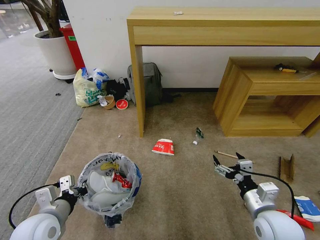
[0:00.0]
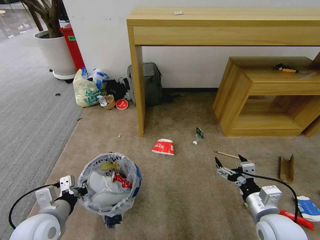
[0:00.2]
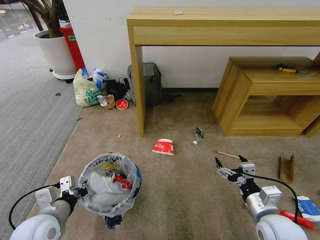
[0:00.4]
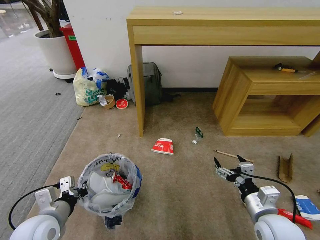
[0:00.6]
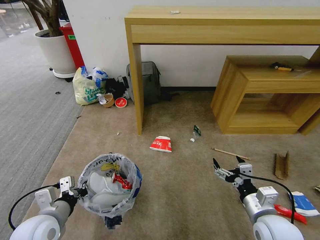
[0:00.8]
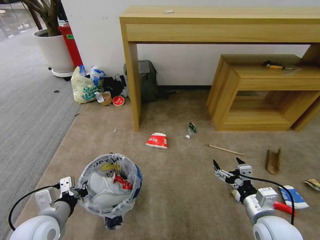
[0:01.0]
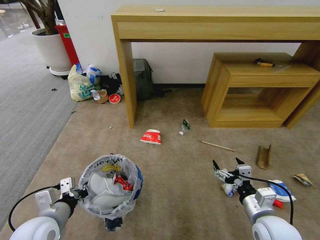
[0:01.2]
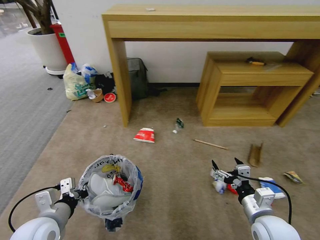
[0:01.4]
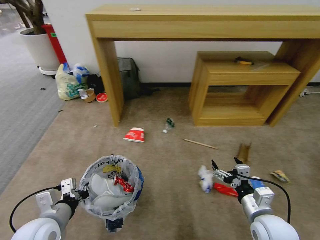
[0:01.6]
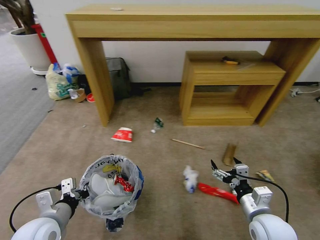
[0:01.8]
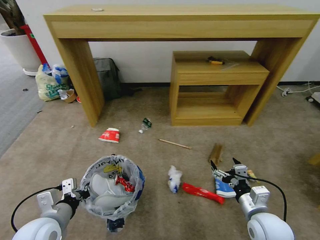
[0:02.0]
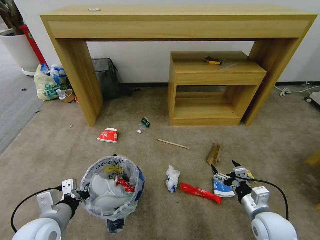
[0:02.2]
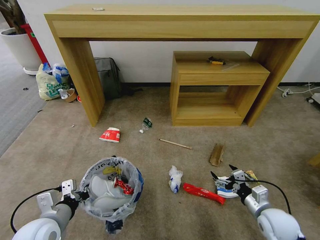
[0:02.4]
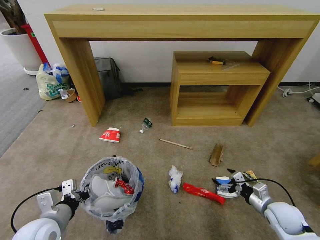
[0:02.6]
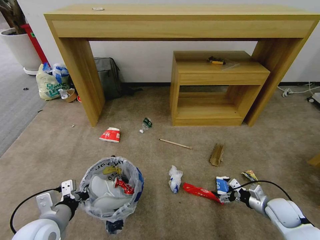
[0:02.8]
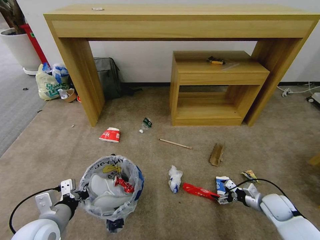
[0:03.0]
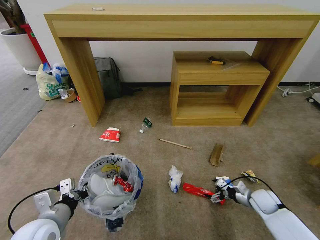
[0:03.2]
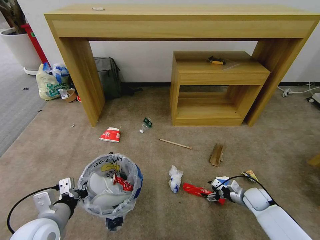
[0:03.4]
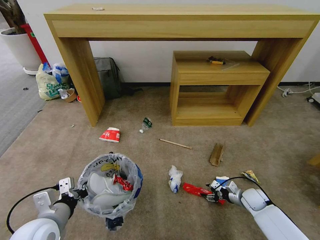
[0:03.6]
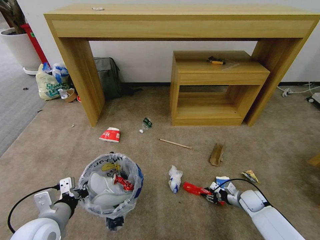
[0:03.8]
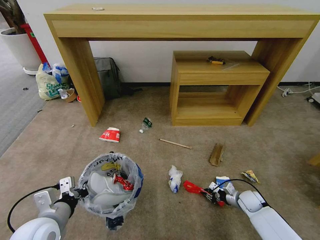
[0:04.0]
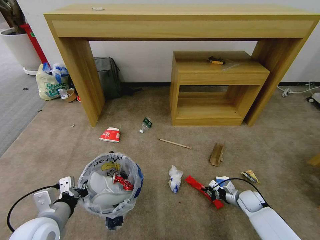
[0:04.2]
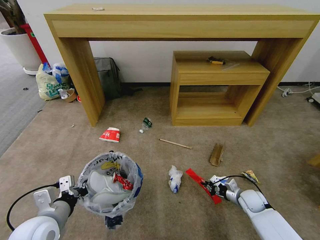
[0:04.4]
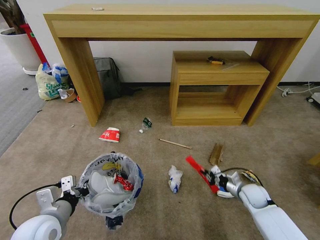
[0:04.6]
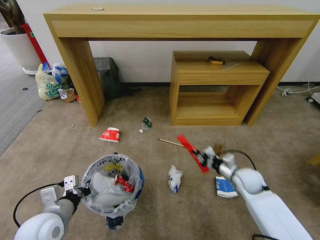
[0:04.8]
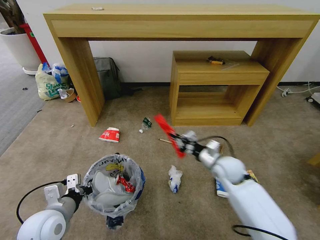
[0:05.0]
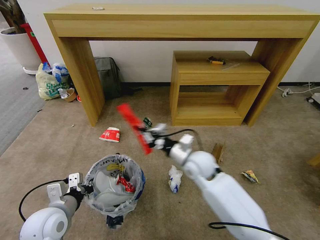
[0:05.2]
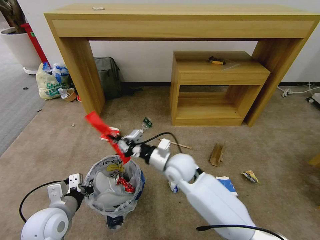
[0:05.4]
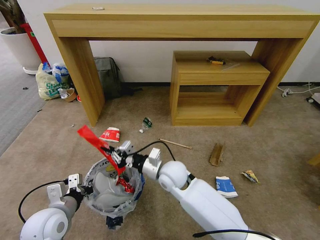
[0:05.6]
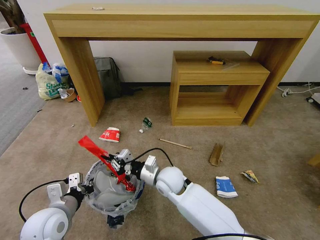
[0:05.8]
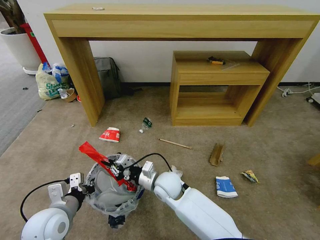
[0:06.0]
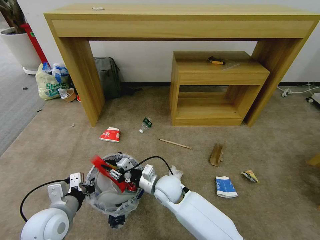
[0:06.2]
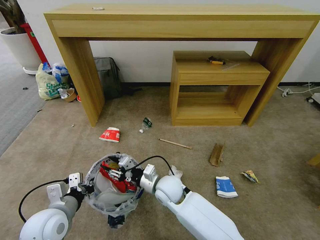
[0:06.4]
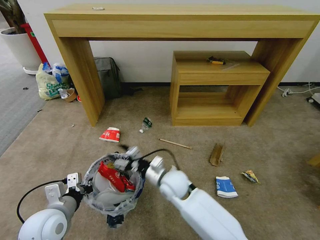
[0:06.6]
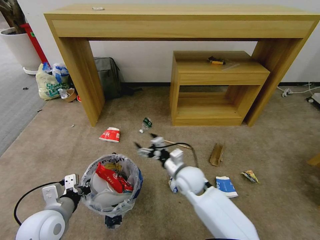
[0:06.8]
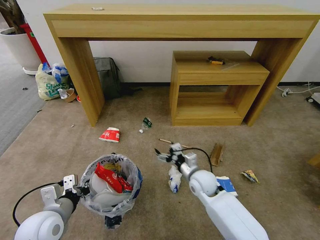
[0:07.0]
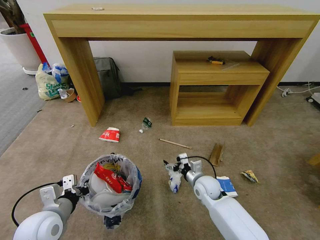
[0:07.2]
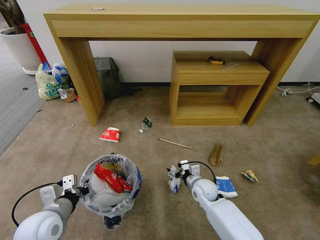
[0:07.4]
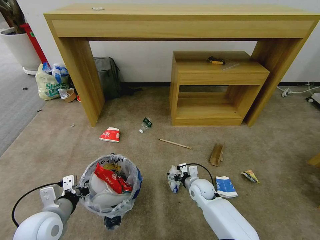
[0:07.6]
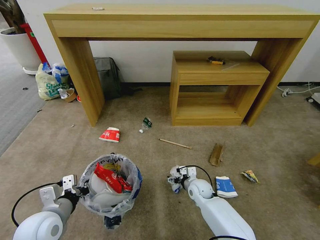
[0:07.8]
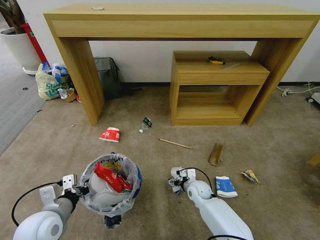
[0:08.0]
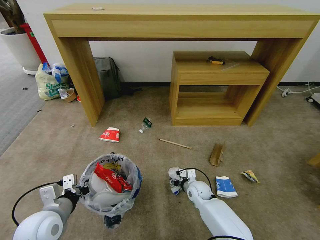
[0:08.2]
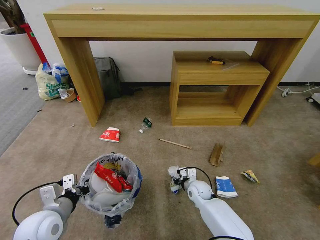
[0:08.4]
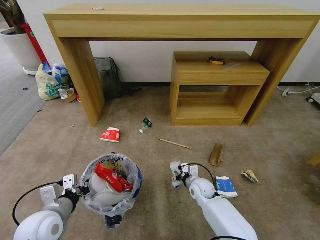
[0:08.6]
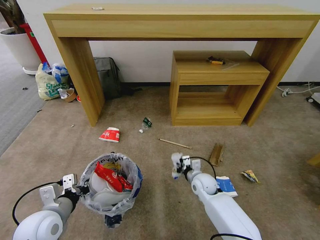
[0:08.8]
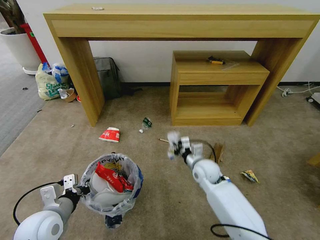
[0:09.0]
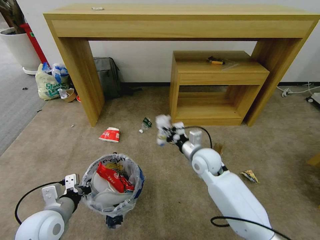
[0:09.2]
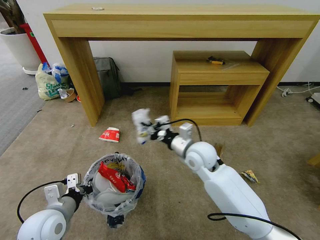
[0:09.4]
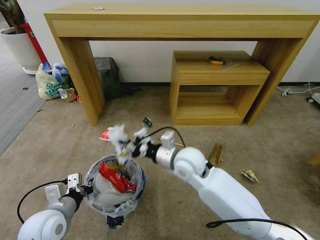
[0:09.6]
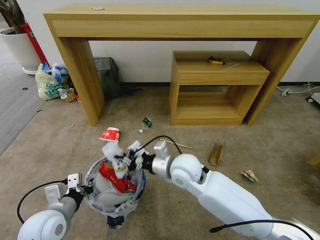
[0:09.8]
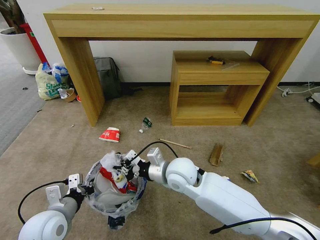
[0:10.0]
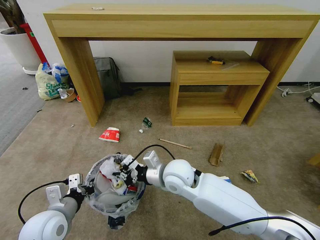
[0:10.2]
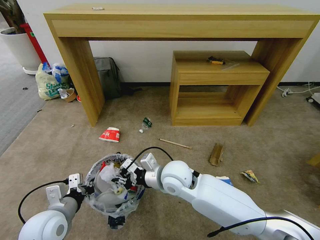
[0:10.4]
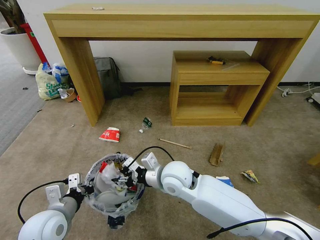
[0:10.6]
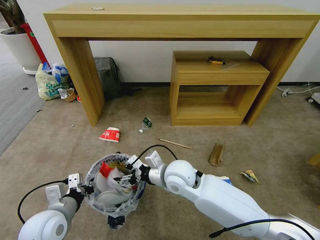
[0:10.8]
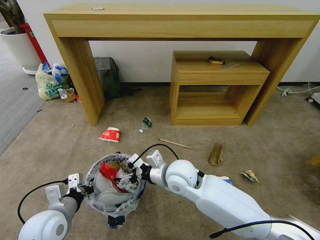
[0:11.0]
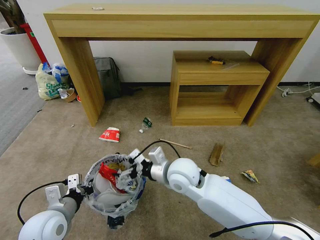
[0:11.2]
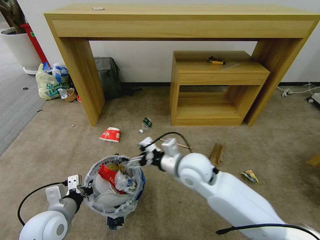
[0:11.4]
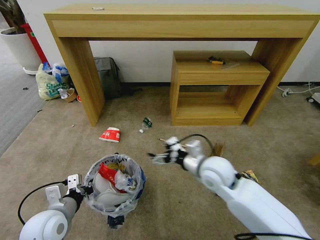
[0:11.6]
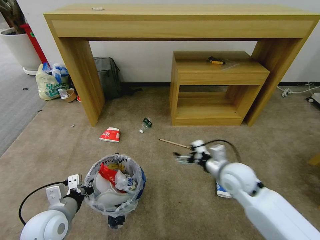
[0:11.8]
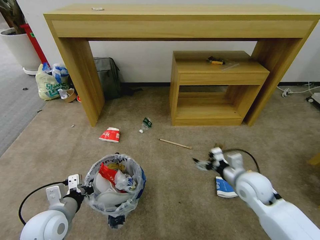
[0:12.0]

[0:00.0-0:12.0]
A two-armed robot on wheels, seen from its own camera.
Task of the whole recording: Pick up the trash bin and place the garbage on the floor into it.
0:01.6 to 0:03.0: The right gripper travels to the right, downward and forward by approximately 20 cm.
0:03.0 to 0:04.4: The right gripper goes about 10 cm downward and to the left, and closes.
0:04.4 to 0:06.0: The right gripper goes roughly 35 cm to the left.
0:06.0 to 0:07.6: The right gripper goes some 20 cm to the right and downward, and opens its fingers.
0:07.6 to 0:09.0: The right gripper moves upward, approximately 10 cm, and closes.
0:09.0 to 0:10.4: The right gripper shifts roughly 20 cm to the left, upward and backward.
0:10.4 to 0:12.0: The right gripper moves to the right, approximately 25 cm, and opens up.

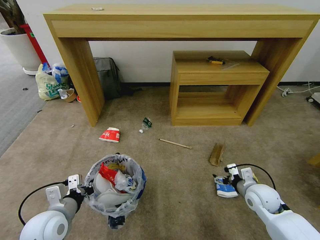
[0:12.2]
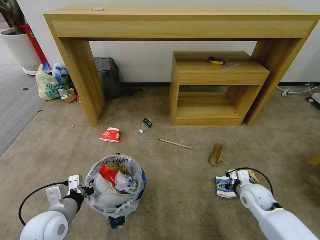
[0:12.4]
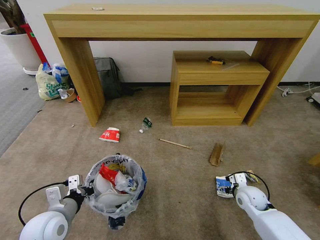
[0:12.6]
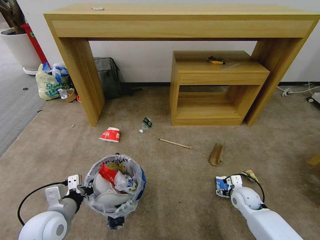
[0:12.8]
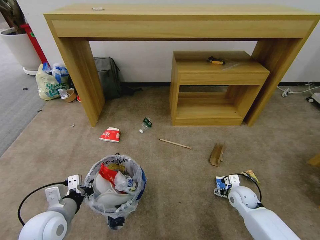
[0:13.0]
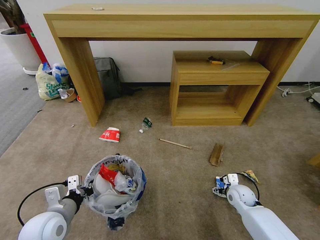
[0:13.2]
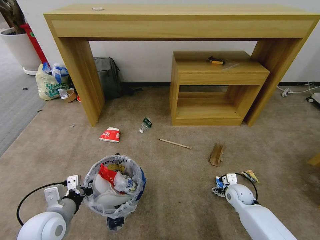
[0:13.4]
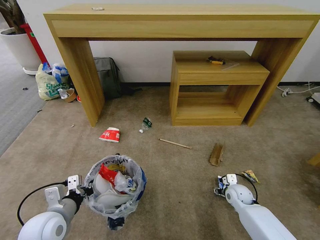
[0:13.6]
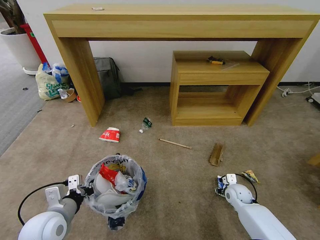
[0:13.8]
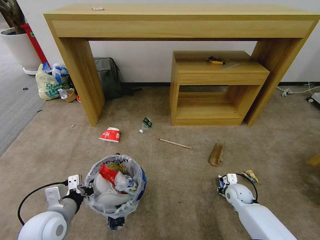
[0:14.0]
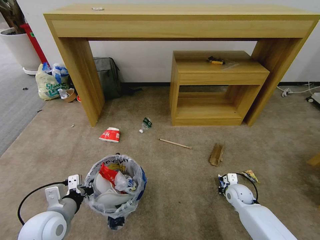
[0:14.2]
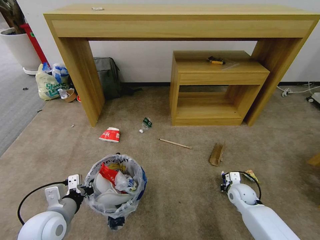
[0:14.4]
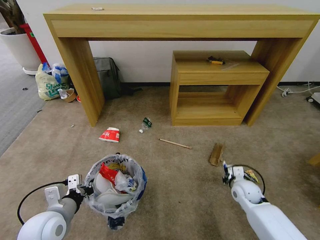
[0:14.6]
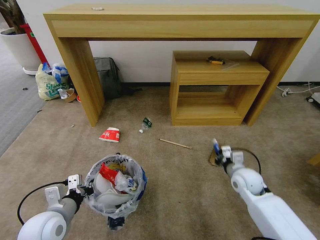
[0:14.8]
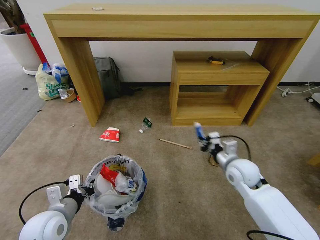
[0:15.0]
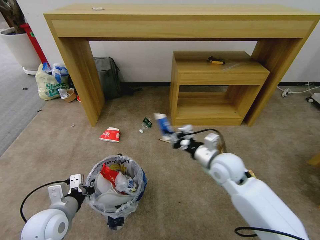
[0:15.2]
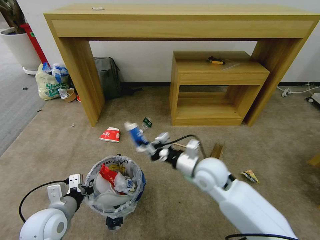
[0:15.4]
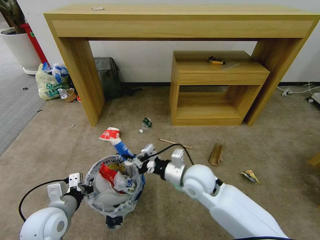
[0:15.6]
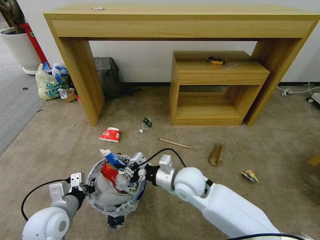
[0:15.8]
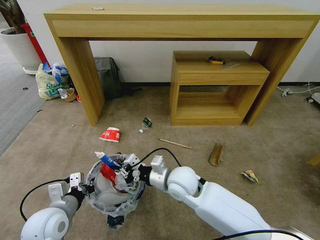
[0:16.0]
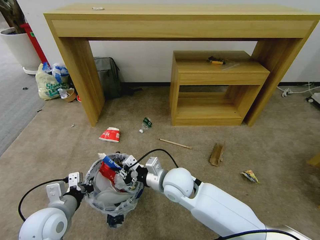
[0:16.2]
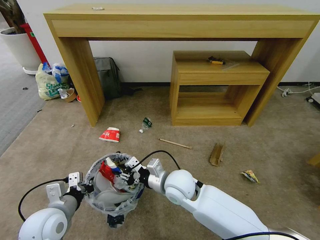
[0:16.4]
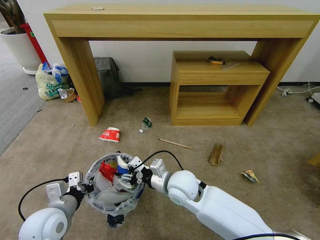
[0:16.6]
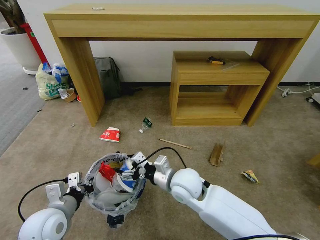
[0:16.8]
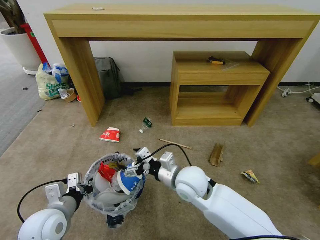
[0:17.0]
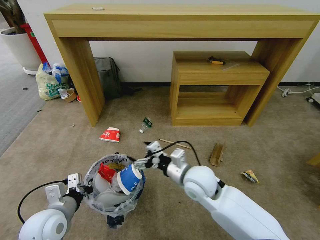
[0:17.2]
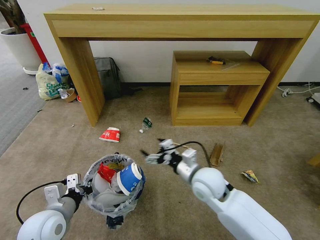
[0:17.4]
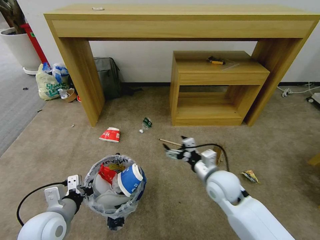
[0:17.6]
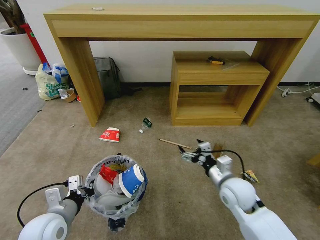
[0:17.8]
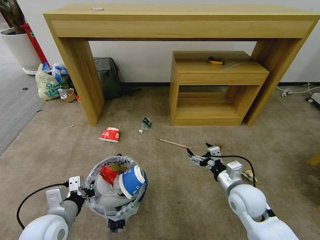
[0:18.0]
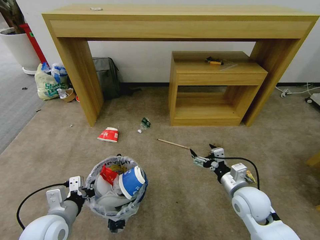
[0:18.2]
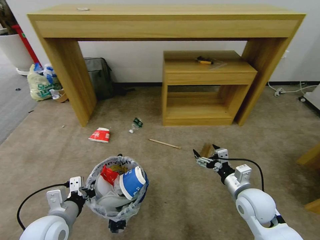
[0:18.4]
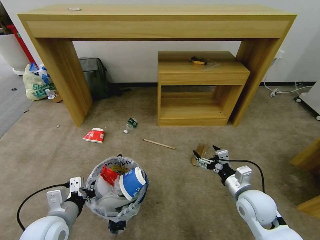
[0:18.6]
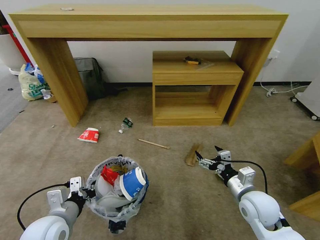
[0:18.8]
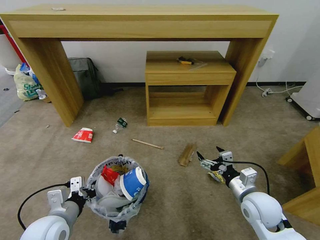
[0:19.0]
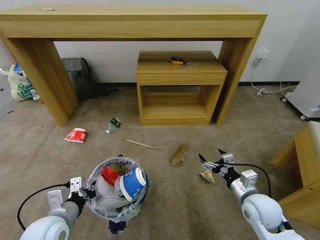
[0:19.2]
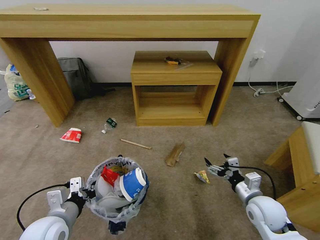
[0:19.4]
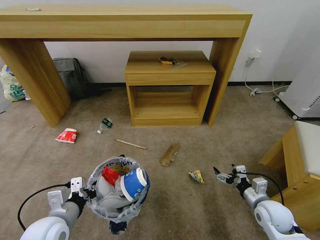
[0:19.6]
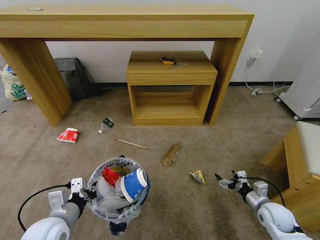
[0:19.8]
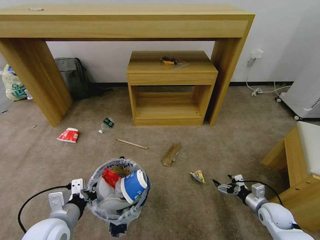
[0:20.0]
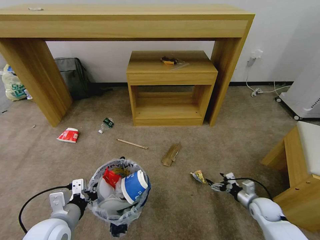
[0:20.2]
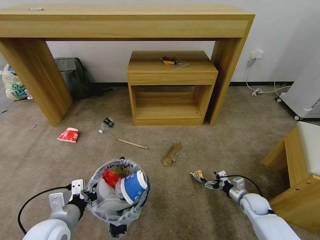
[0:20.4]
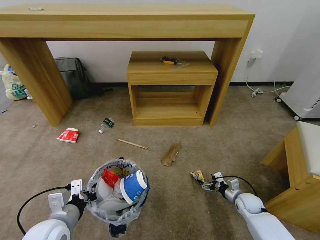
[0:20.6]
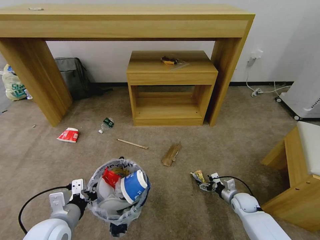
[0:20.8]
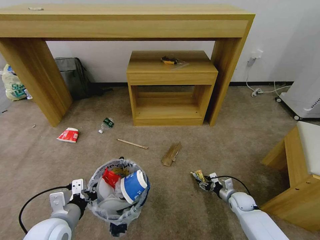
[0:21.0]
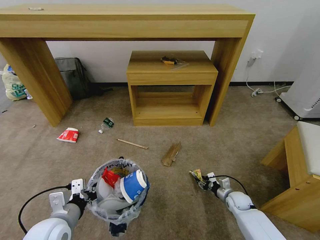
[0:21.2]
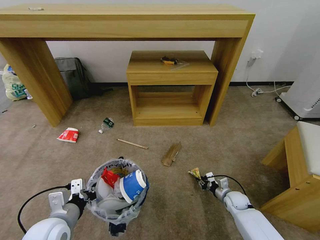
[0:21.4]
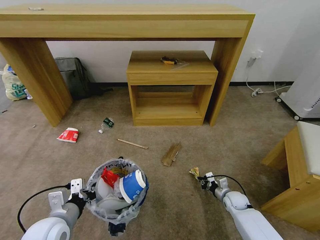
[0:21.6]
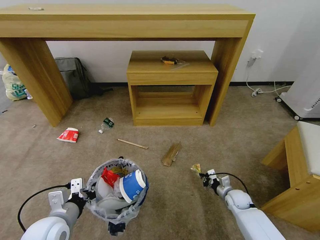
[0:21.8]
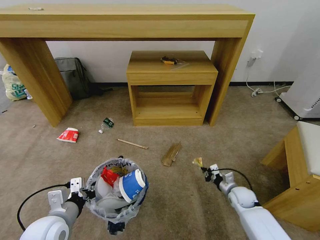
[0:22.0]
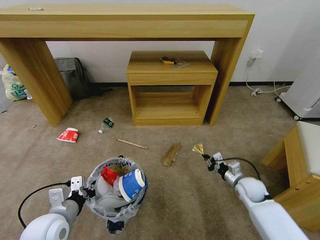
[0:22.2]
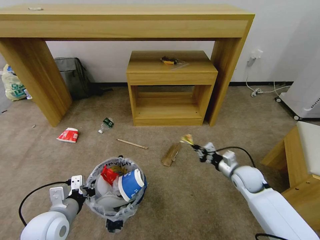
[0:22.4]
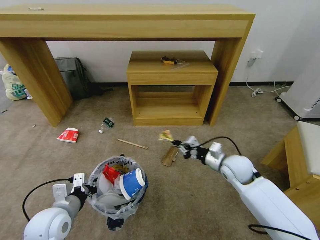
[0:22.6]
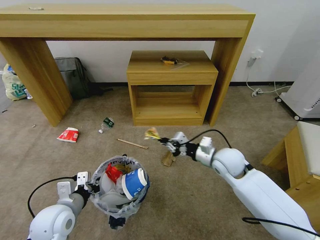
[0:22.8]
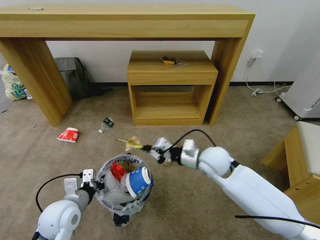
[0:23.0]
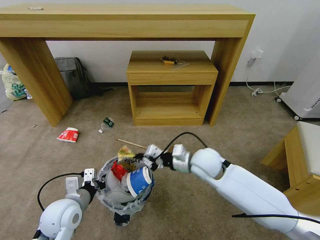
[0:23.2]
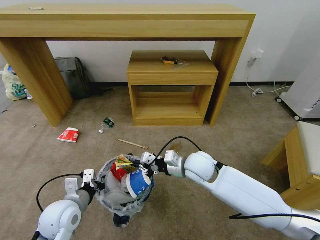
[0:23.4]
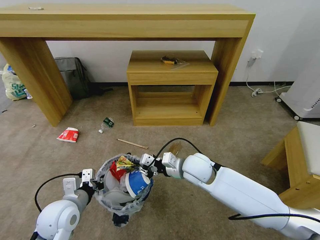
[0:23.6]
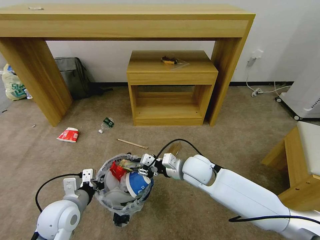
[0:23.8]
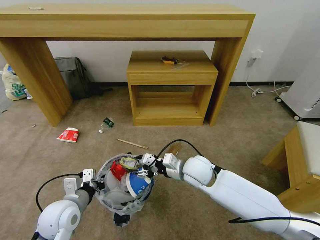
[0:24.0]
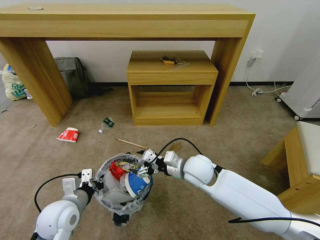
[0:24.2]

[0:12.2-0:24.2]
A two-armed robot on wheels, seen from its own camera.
Task of the whole recording: Pick up the trash bin and place the garbage on the floor into it.
0:12.2 to 0:13.8: The right gripper moves downward and forward, some 15 cm, and closes its fingers.
0:13.8 to 0:15.2: The right gripper is displaced upward and to the left by some 25 cm, and closes its fingers.
0:15.2 to 0:16.6: The right gripper heads to the left, covering about 15 cm, and opens up.
0:16.6 to 0:18.2: The right gripper goes some 20 cm to the right, and opens up.
0:18.2 to 0:19.8: The right gripper moves to the right and downward, approximately 15 cm.
0:19.8 to 0:21.2: The right gripper shifts approximately 15 cm downward and forward, and closes up.
0:21.2 to 0:22.6: The right gripper moves upward, about 20 cm, and closes its fingers.
0:22.6 to 0:24.2: The right gripper goes about 20 cm to the left, and opens its fingers.
